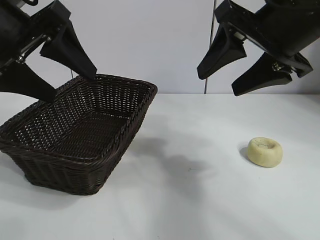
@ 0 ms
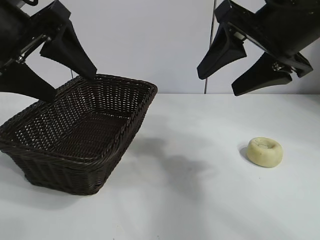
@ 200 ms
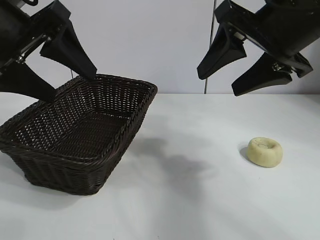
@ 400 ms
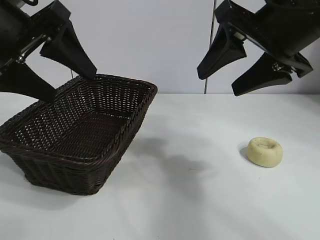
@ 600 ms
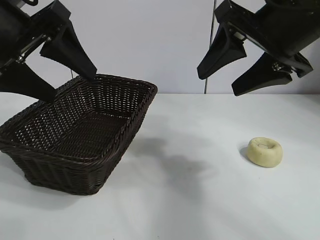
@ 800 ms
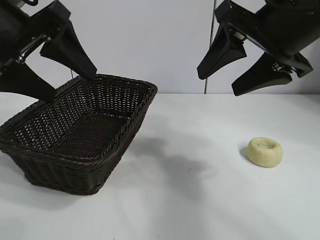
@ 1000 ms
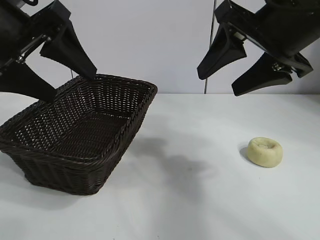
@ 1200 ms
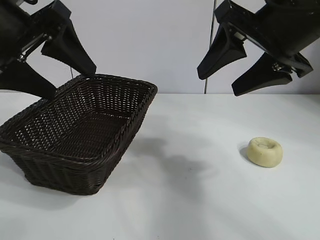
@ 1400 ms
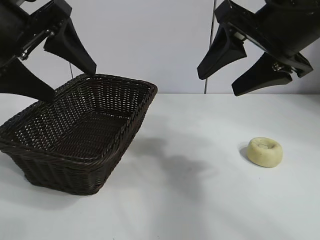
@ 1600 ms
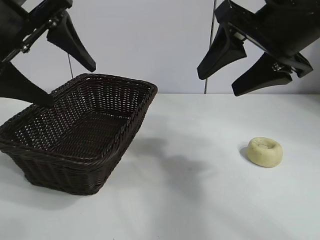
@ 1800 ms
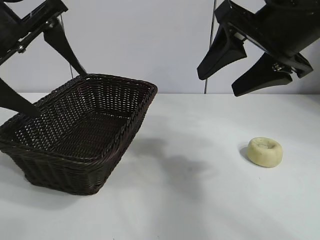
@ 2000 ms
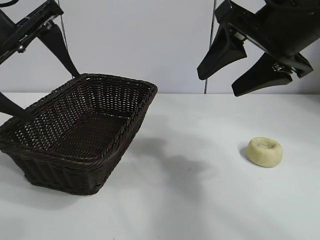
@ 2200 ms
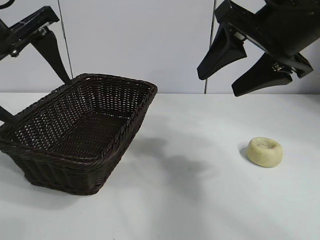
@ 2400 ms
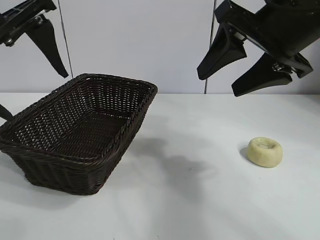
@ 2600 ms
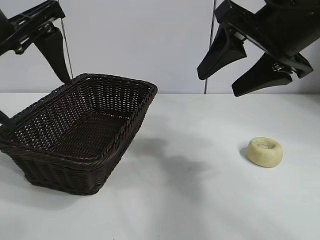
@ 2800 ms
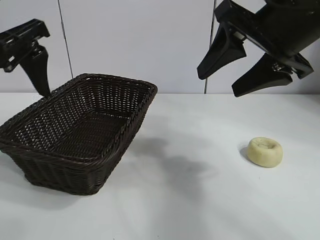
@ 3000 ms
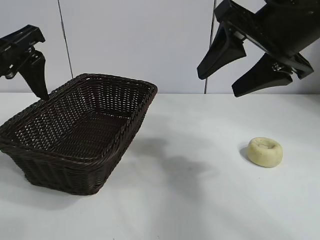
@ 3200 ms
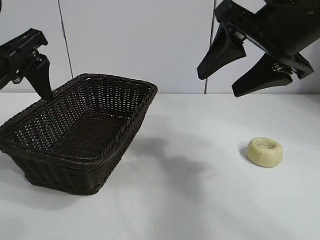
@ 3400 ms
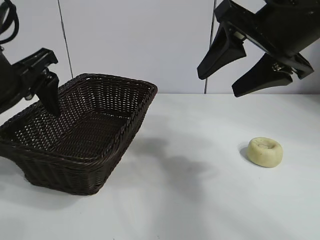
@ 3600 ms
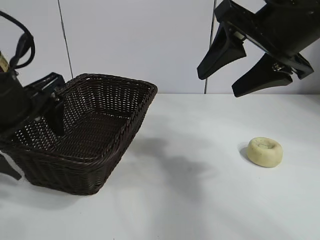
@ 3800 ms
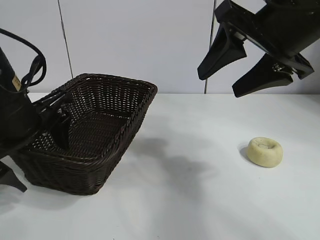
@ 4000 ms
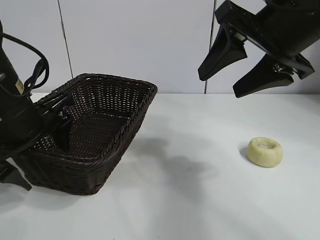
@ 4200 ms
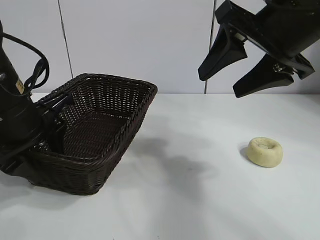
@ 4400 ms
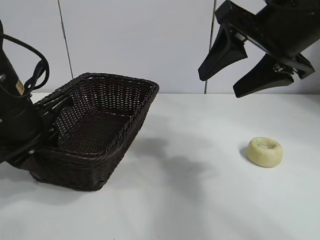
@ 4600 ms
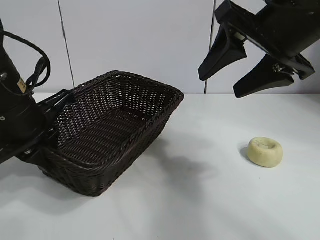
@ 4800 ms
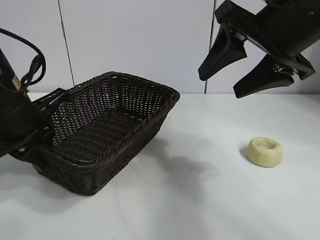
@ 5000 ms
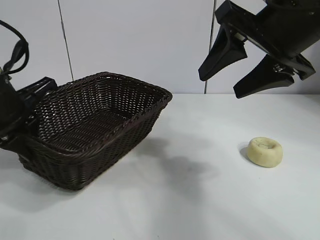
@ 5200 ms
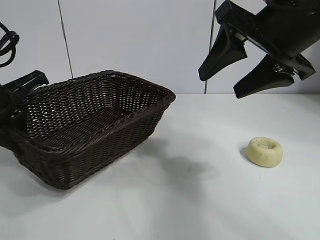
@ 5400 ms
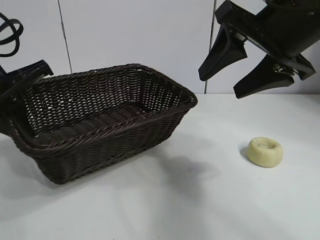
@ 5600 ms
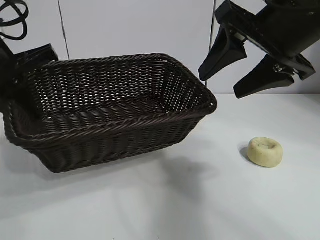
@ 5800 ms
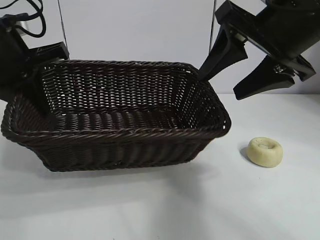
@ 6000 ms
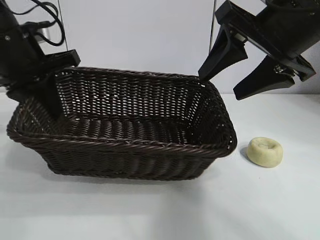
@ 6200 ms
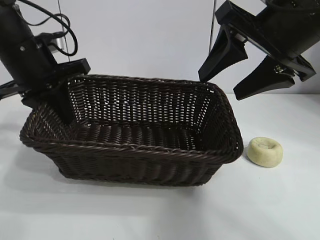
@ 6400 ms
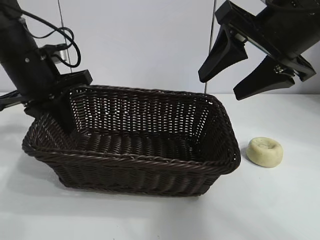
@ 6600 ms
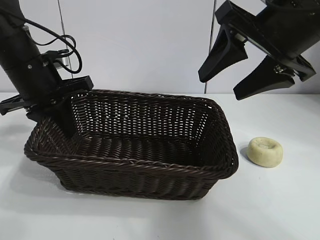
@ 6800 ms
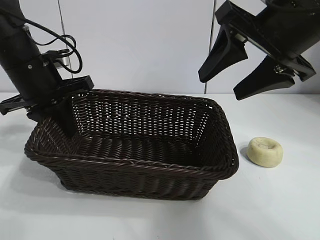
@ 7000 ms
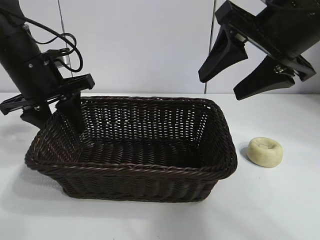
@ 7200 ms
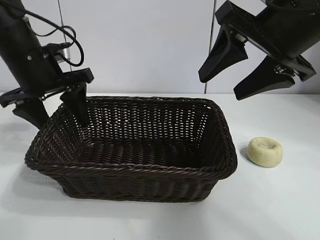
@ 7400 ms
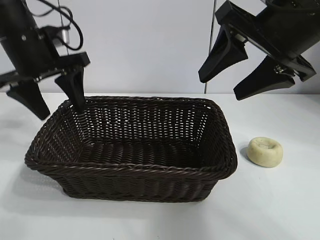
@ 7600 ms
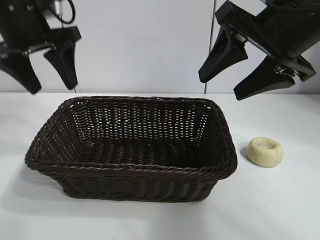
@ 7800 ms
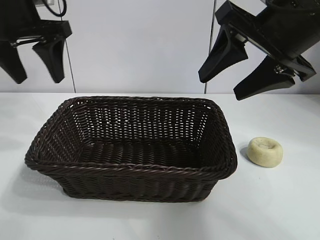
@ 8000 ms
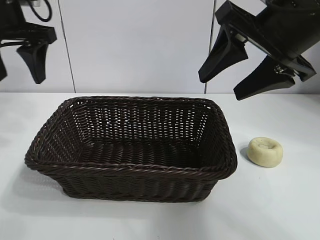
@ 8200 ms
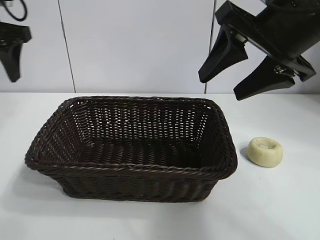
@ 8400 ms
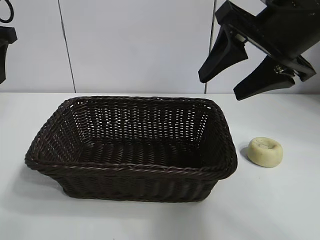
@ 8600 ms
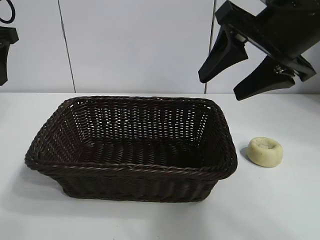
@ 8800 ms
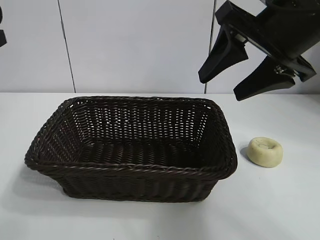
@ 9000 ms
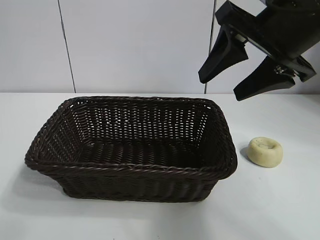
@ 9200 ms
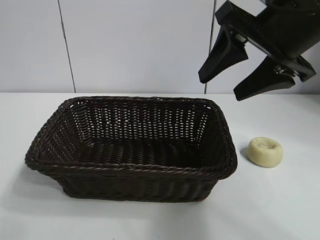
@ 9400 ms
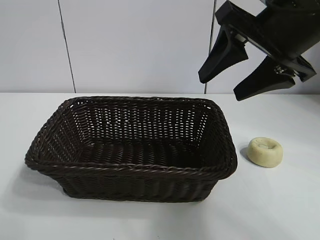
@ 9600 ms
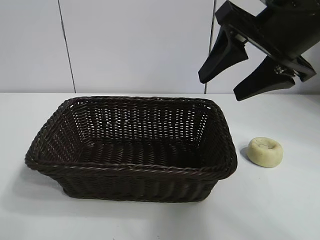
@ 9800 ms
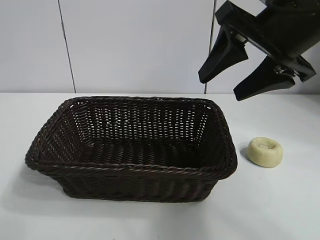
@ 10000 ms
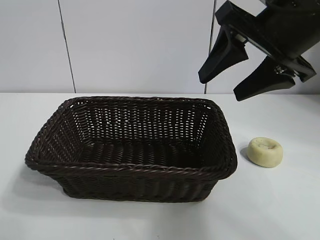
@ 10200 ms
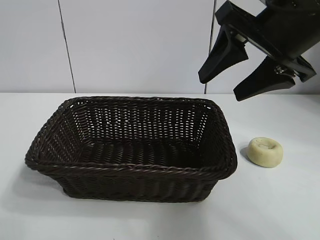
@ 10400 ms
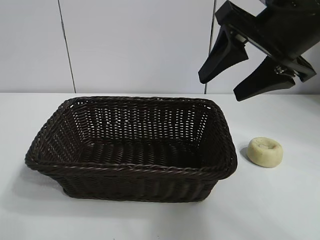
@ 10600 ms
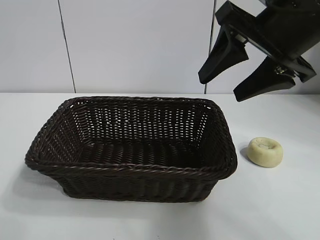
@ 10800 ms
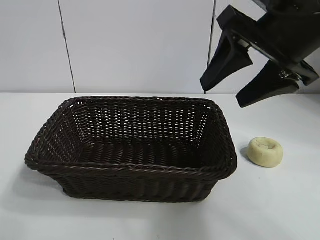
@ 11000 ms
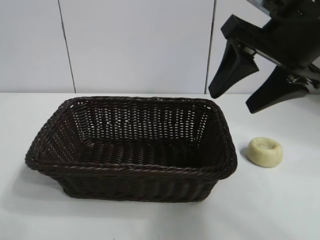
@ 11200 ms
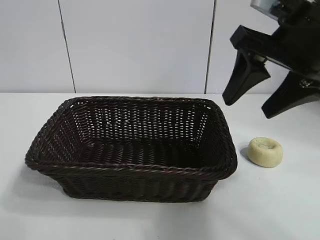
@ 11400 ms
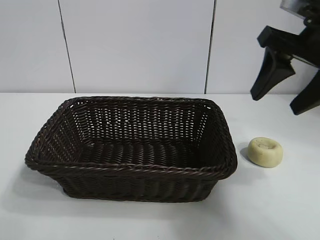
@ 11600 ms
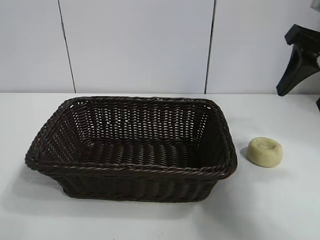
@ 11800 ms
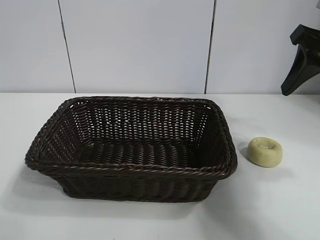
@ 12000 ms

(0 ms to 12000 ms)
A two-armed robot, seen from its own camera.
Task of the whole recording: pick up the egg yolk pastry and put it into the basket.
Step, 1400 ms - 4600 ms: Grasp the basket with left gripper.
Step, 4800 ms - 7600 ms: Place the basket in the center of view with left gripper.

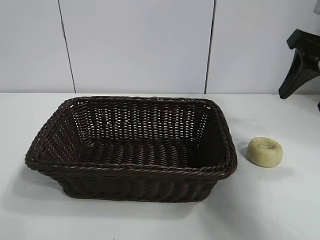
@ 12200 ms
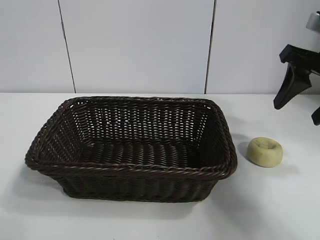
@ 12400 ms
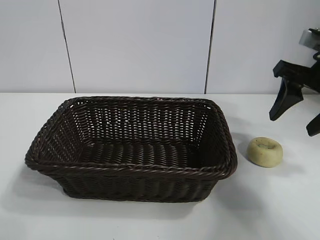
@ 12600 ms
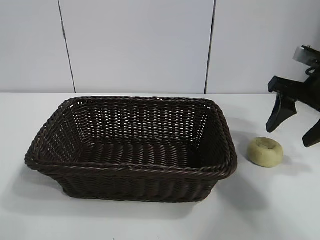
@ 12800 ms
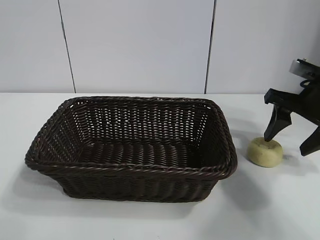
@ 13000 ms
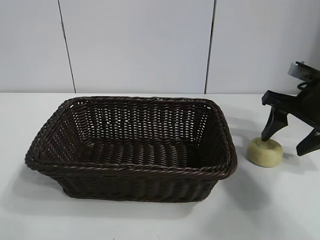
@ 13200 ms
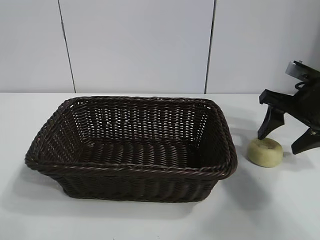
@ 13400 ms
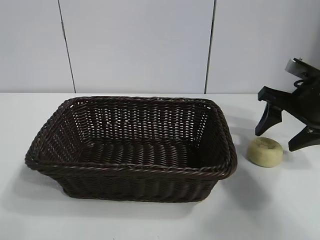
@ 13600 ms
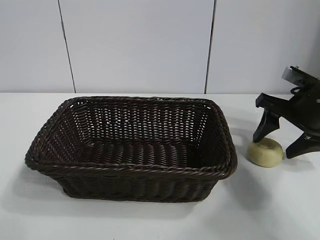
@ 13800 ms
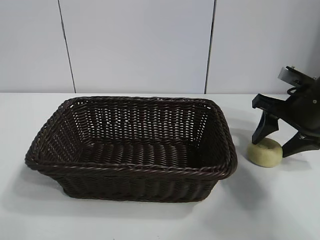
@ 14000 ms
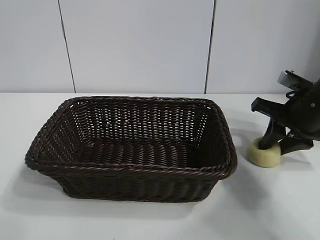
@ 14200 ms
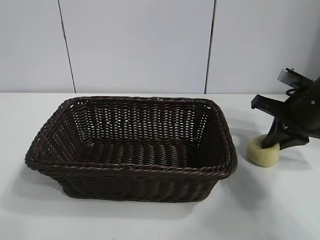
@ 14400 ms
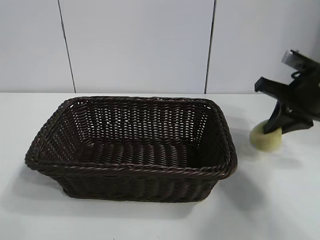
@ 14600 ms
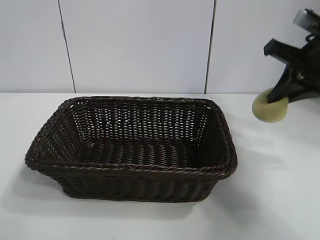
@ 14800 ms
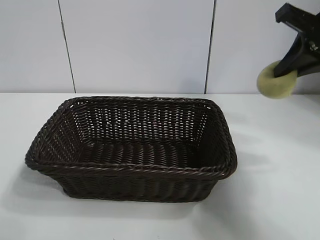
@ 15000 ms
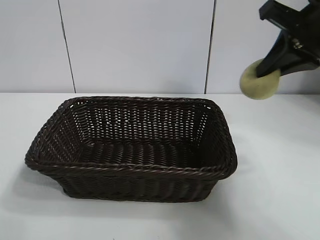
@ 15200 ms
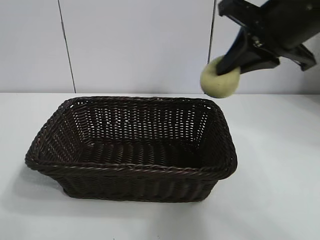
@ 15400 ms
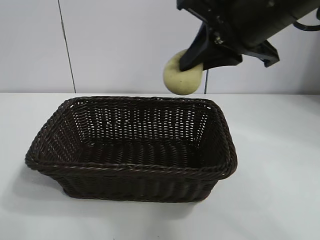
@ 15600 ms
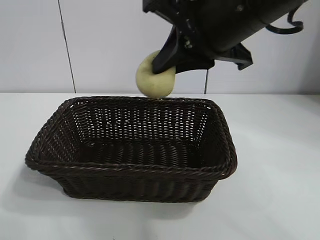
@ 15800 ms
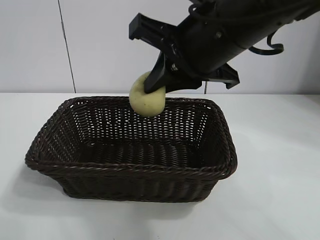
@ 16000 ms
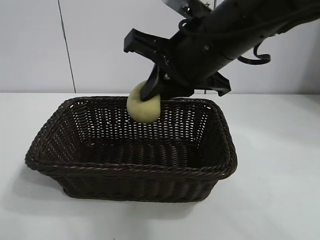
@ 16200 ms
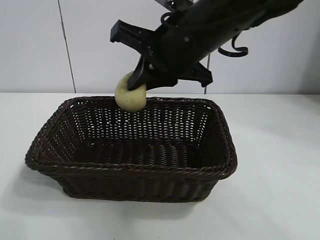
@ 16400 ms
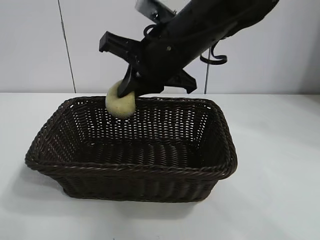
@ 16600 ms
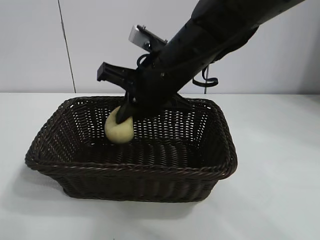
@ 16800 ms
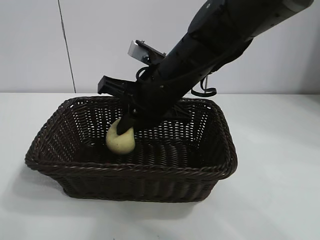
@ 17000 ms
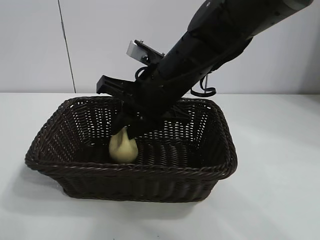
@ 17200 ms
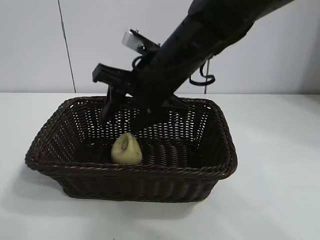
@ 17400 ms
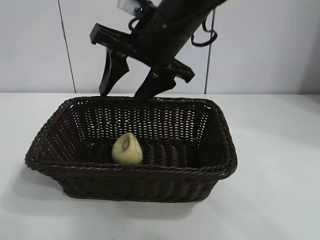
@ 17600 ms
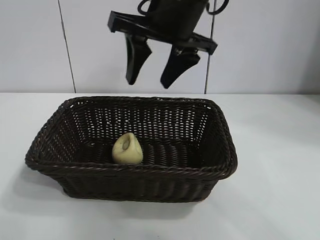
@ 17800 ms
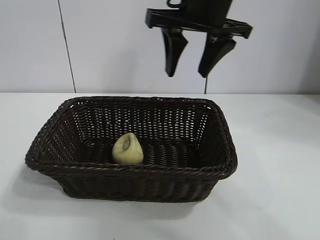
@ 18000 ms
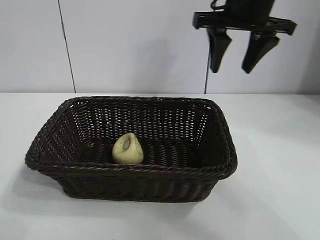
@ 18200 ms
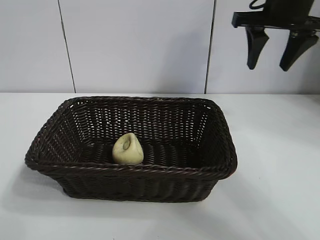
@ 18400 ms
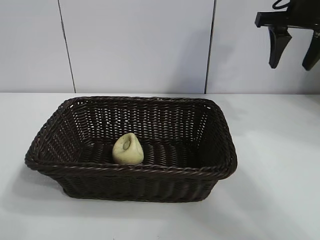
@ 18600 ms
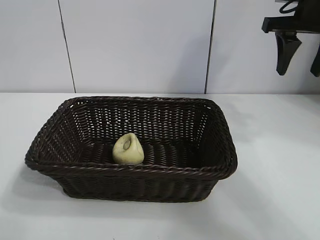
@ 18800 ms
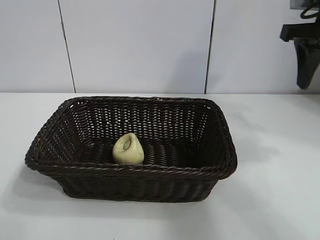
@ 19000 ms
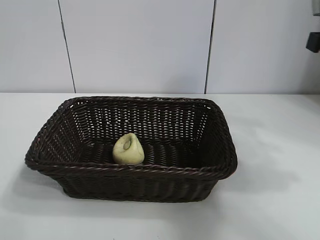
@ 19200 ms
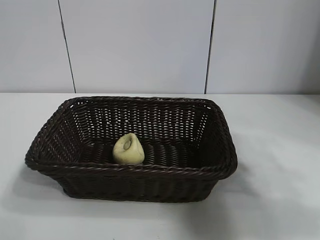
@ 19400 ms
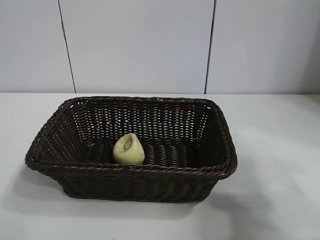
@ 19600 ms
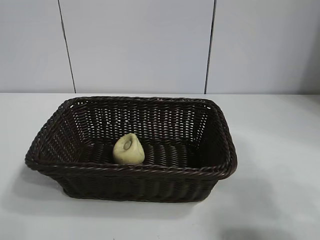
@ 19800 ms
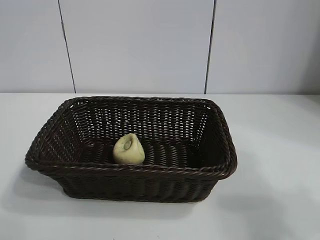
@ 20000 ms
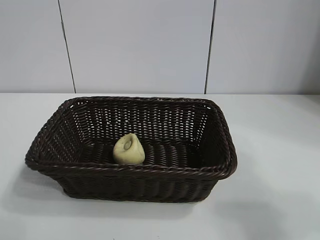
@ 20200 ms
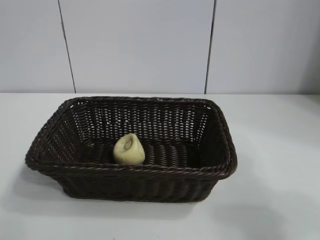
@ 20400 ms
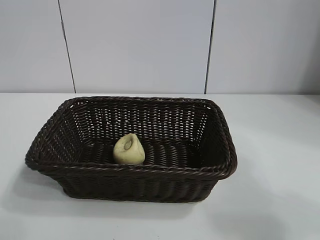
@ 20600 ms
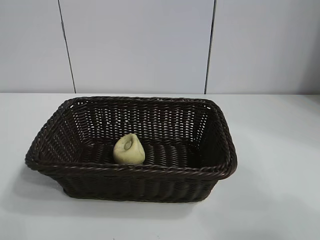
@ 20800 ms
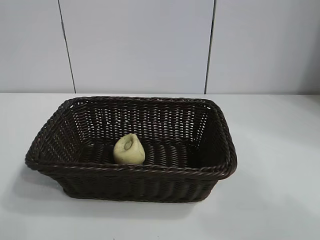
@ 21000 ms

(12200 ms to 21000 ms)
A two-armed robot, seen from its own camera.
Task of the whole recording: pick up the egg yolk pastry and put it into the basket.
Step, 12200 ms - 14200 ms: Grasp egg yolk pastry with right gripper.
Step, 14600 ms - 17400 ms: Place the egg yolk pastry in the basket with right gripper.
